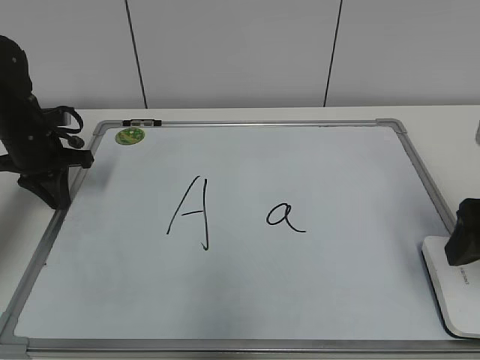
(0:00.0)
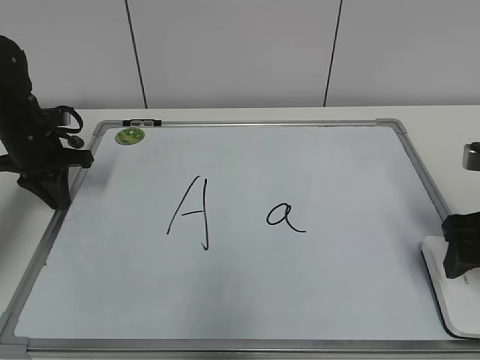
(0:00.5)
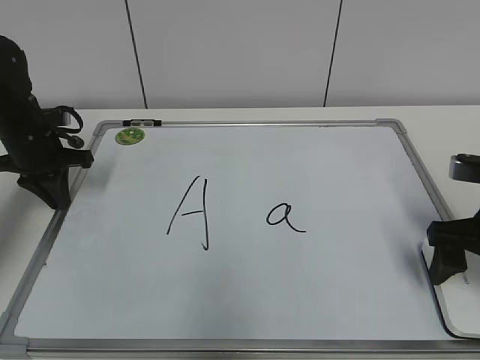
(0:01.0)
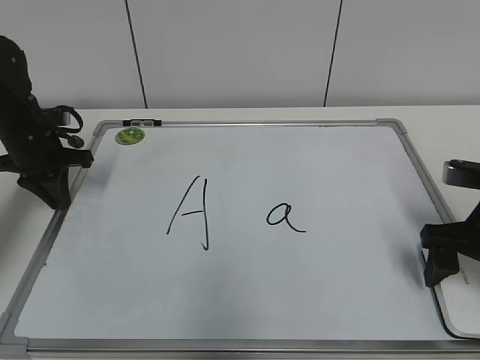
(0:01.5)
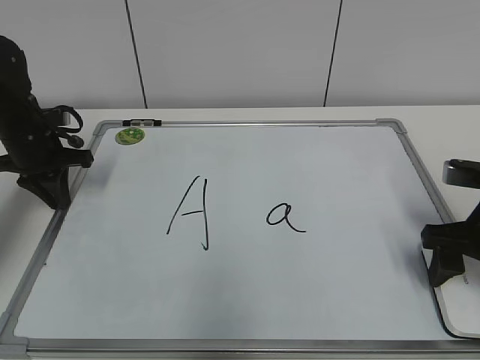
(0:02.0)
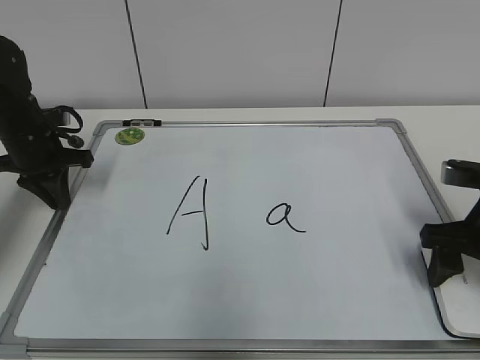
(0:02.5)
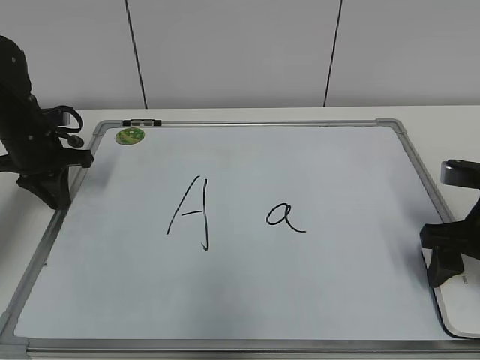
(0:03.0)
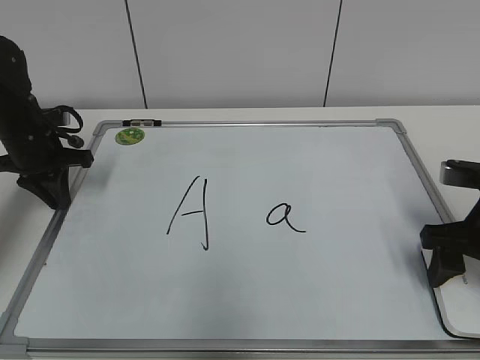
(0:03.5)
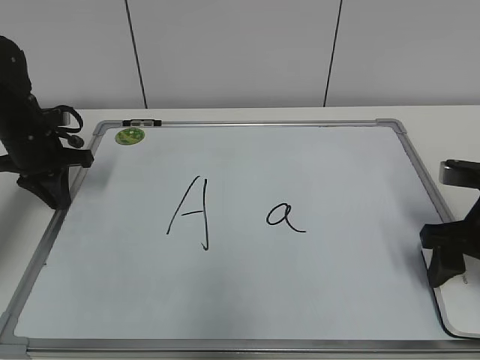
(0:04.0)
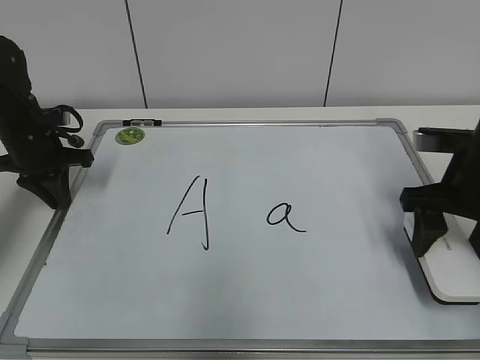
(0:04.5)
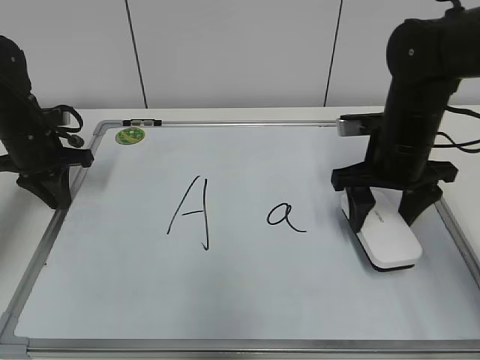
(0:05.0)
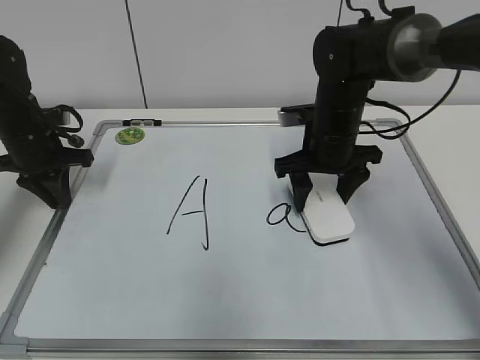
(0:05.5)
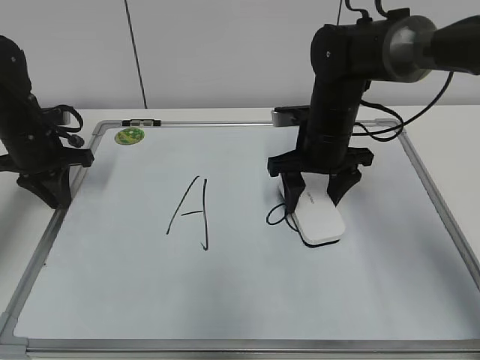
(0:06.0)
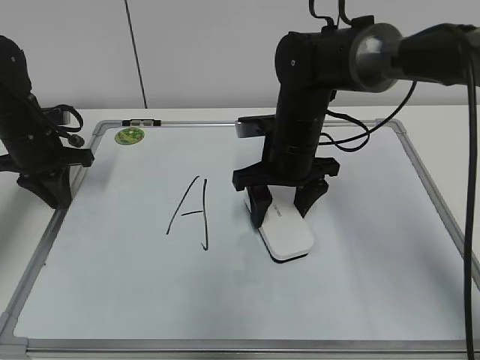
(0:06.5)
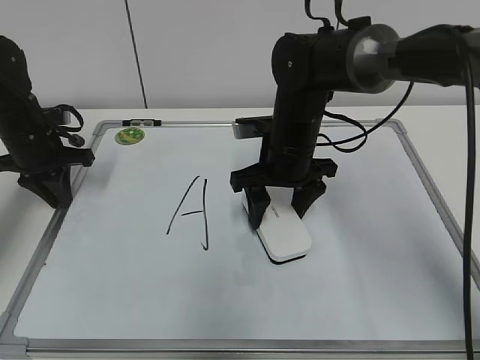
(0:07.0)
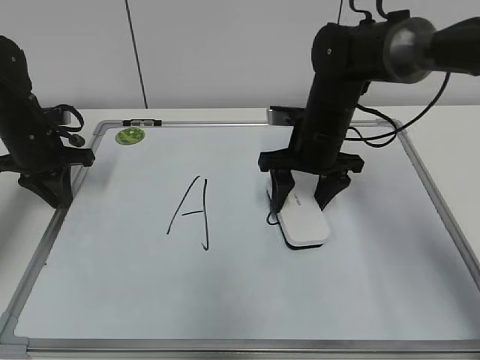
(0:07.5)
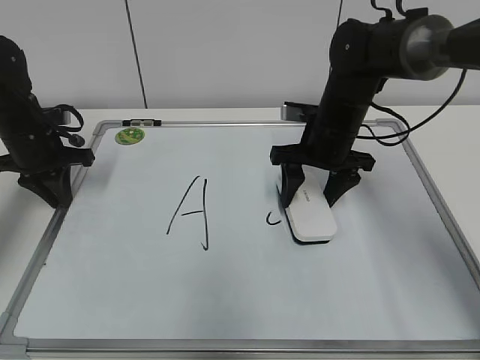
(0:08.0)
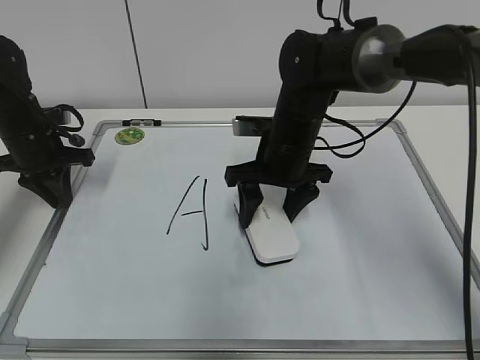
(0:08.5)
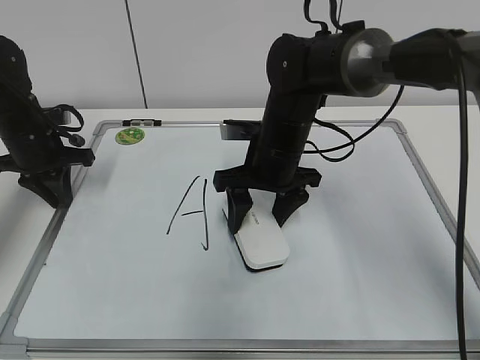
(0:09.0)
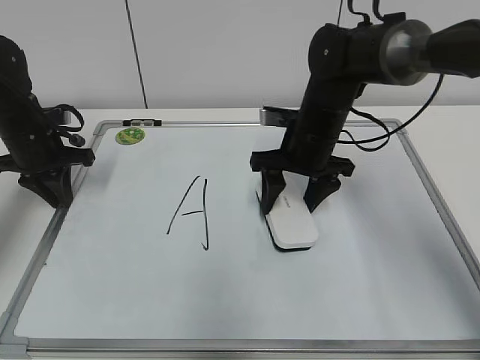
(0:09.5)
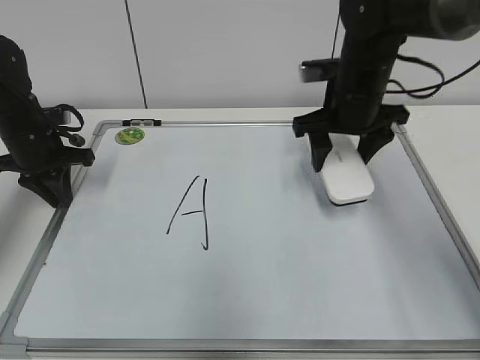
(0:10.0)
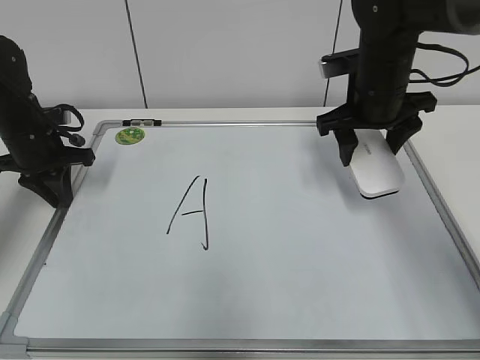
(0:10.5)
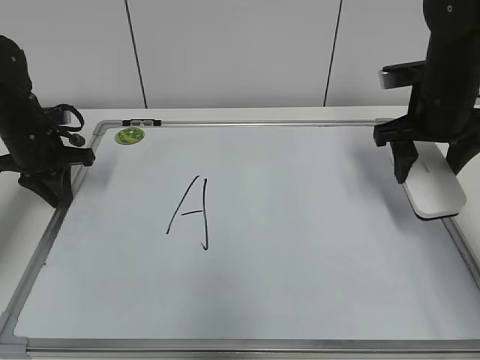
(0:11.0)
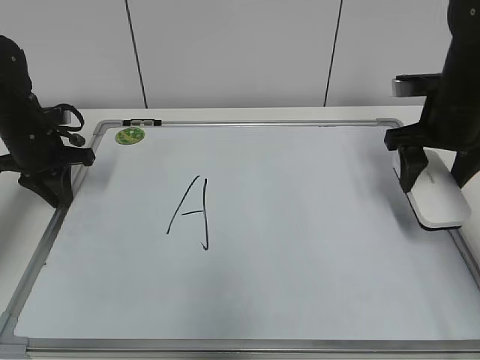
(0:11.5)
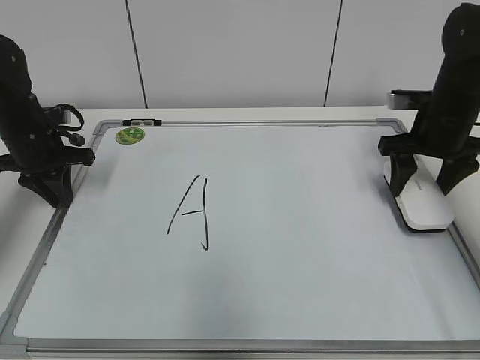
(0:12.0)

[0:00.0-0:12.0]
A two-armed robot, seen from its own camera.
Task of the whole recording: pick up the eraser on the blackboard and erase the letter "a".
Step, 0:00.0 to 0:02.0: Grab the eraser with your right hand.
Step, 0:02.5 to 0:09.5: Erase the letter a with your right hand.
0:00.0 to 0:02.0: The right gripper travels downward by approximately 5 cm, and closes its fingers.
0:02.0 to 0:04.0: The two grippers keep their place.
0:04.0 to 0:06.0: The right gripper is displaced to the left and forward by about 20 cm.
0:06.0 to 0:08.0: The grippers move only a little.
0:08.0 to 0:10.0: The right gripper is displaced upward by about 5 cm, and reaches about 5 cm to the left, then returns.
0:10.0 to 0:12.0: The right gripper is displaced to the right by approximately 10 cm.

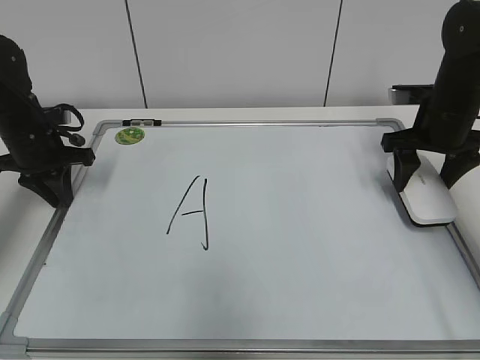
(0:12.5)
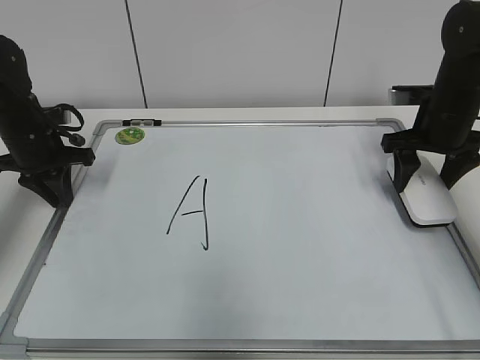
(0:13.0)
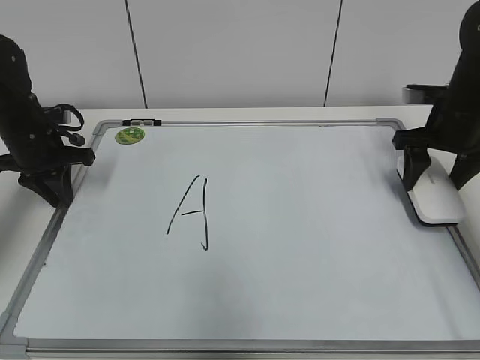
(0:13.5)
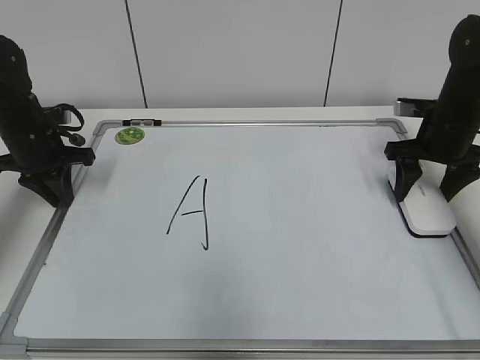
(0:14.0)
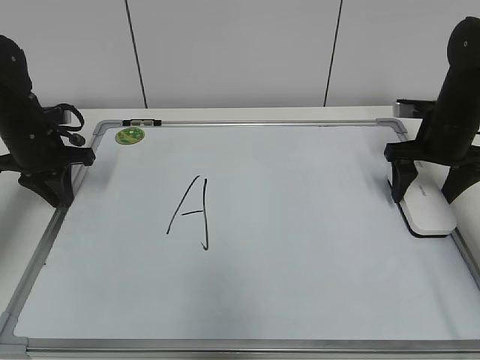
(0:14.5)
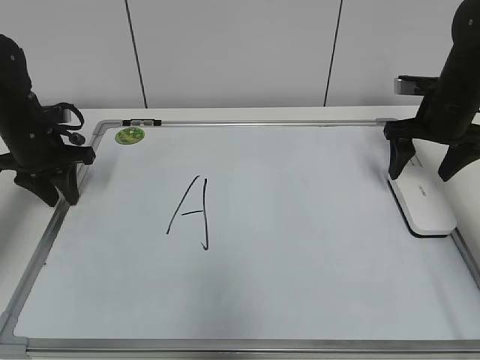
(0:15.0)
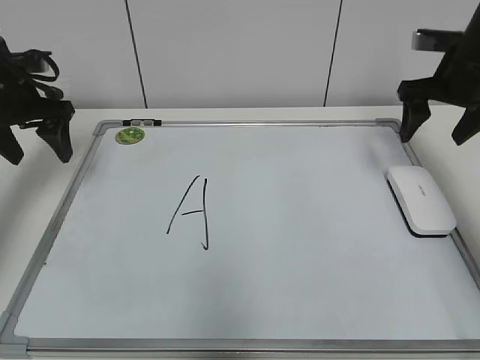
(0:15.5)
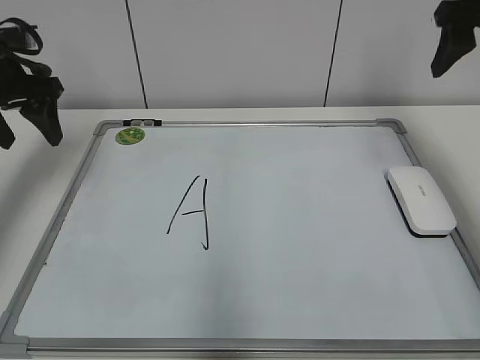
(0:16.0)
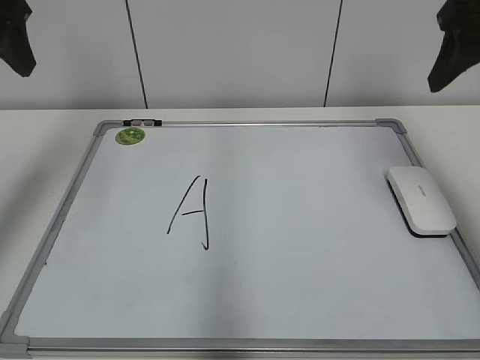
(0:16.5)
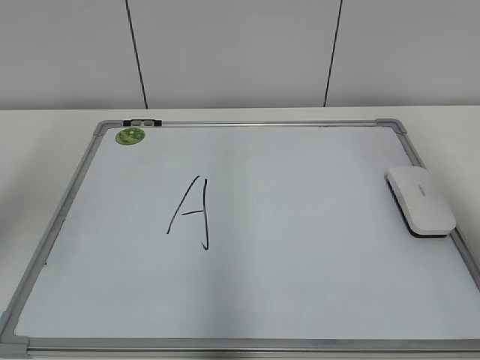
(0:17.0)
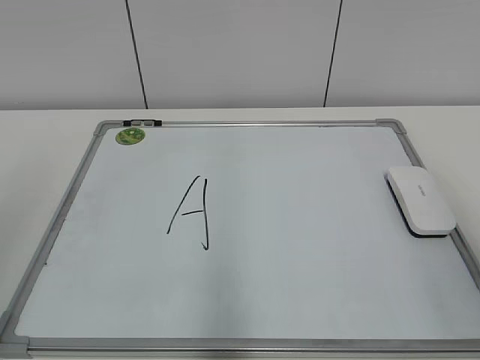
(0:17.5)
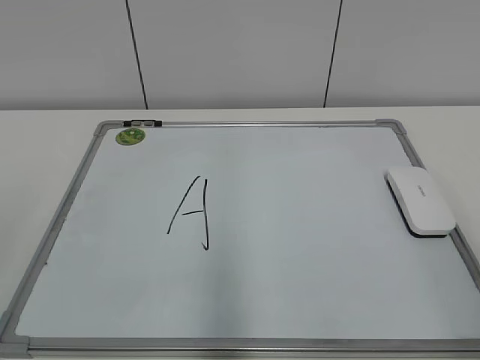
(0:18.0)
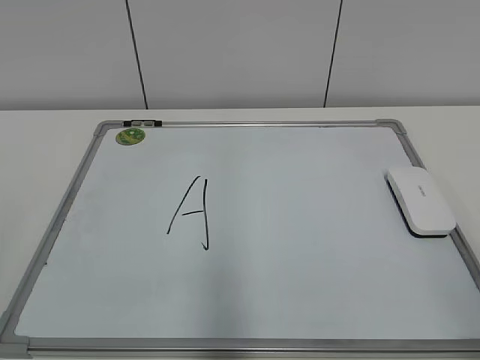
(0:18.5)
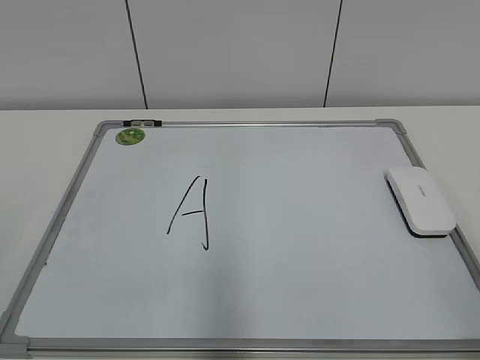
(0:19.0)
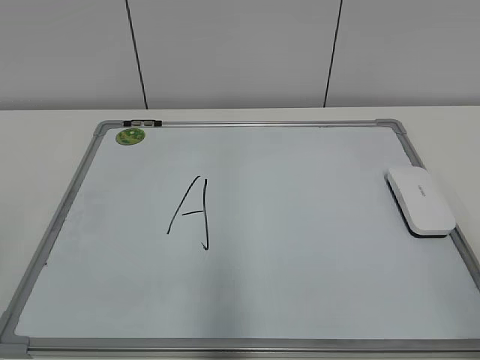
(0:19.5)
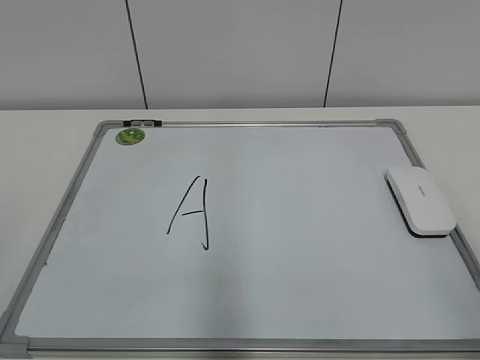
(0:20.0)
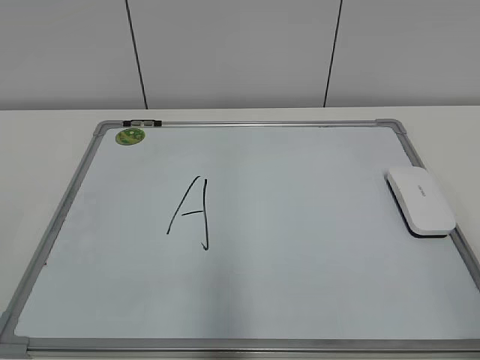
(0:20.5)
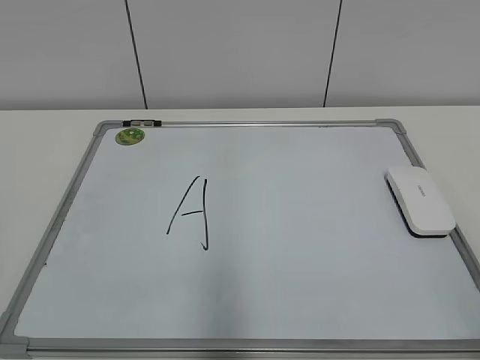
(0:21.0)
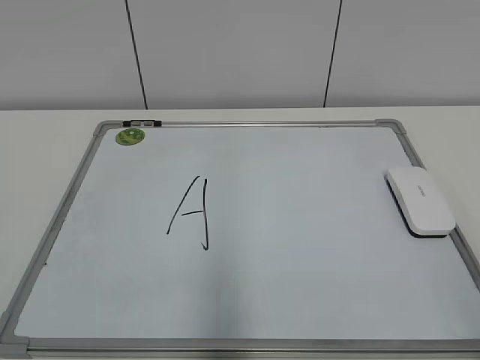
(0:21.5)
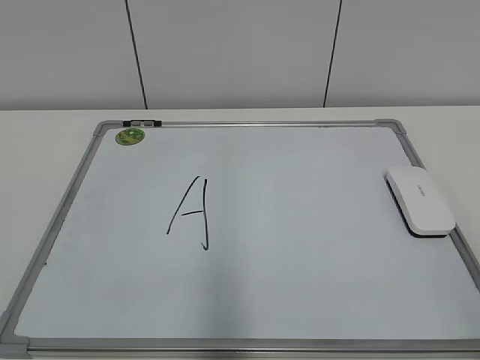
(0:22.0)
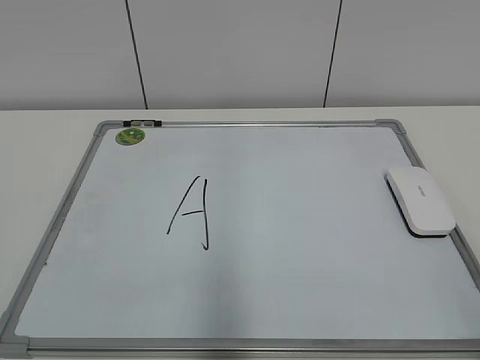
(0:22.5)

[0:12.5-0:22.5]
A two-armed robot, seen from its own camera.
Task of the whole recording: pick up the eraser on the blackboard and erase the letter "a".
0:12.5 to 0:14.5: The right gripper opens up.
0:14.5 to 0:16.5: The right gripper goes about 20 cm upward and backward, and closes. The left gripper moves upward, some 25 cm, and opens its fingers.
0:16.5 to 0:18.5: Both grippers move backward, approximately 30 cm.
0:18.5 to 0:20.5: Neither gripper changes place.

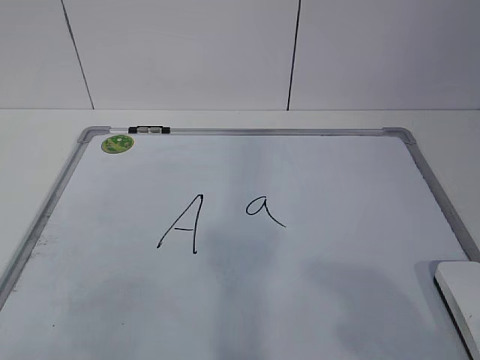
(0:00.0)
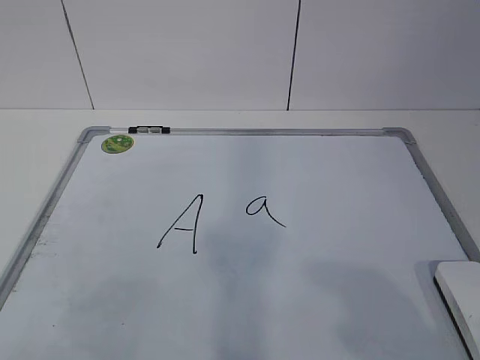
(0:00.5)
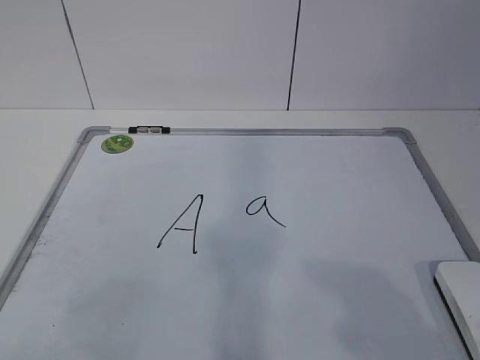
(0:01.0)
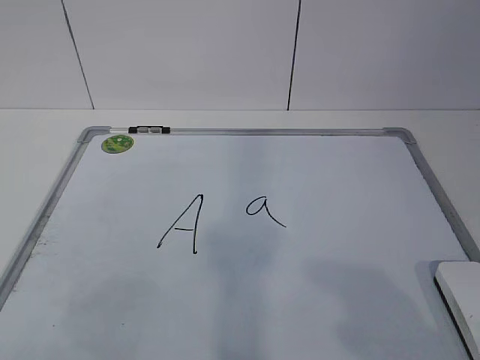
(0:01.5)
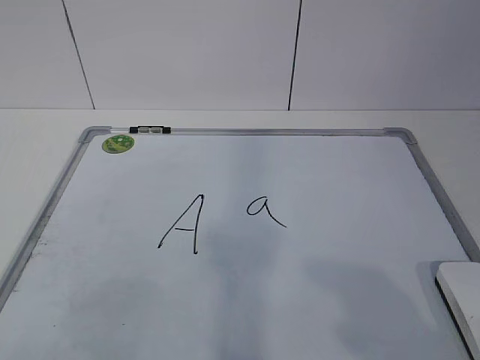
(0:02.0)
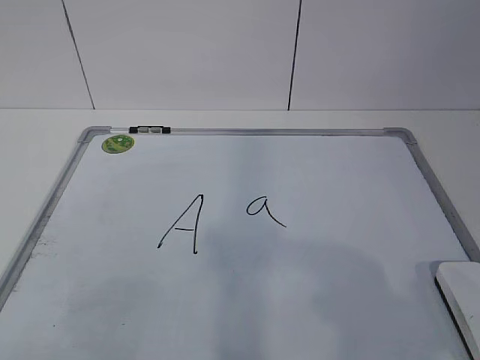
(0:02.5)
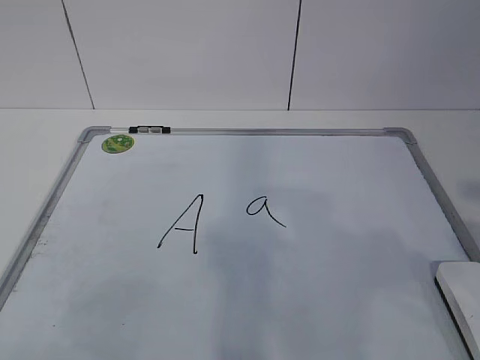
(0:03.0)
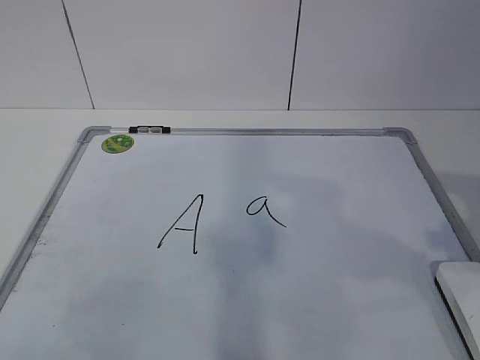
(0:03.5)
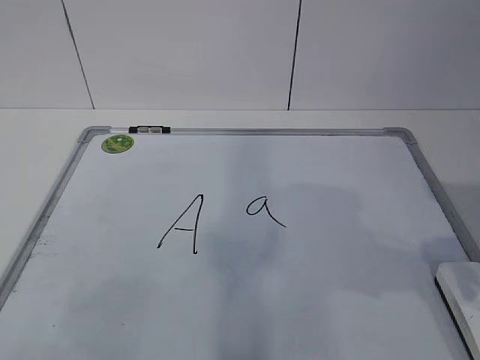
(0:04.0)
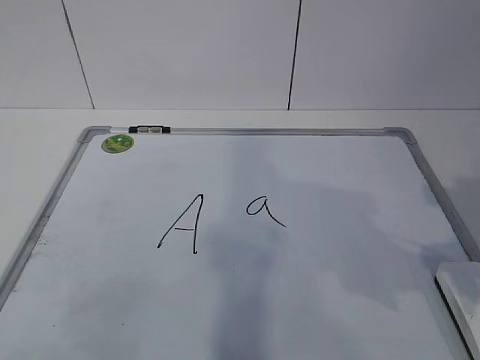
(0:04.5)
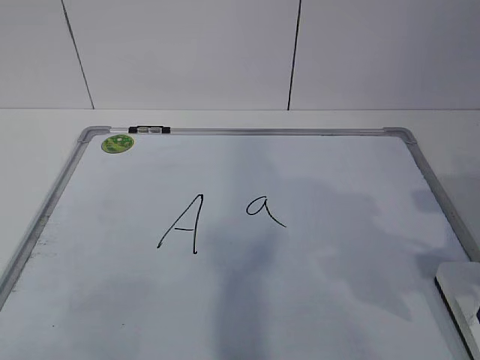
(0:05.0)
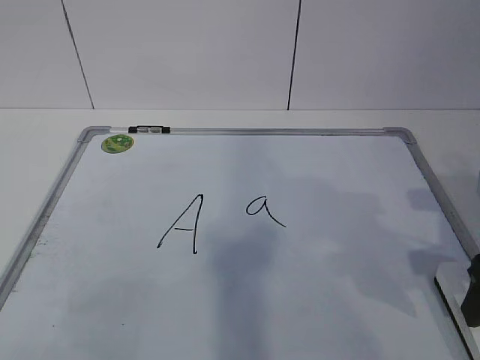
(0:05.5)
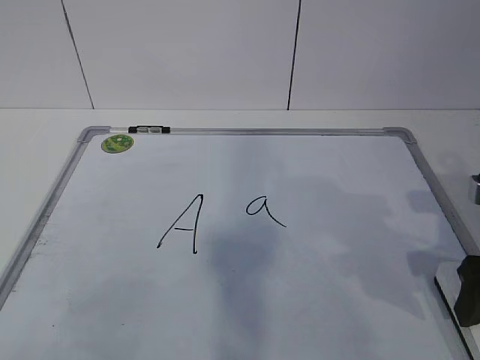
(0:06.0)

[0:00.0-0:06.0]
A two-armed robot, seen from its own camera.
Task of the whole recording: pick up the eraser on the blackboard and erase the letter "a".
0:02.0 to 0:04.0: The right gripper shifts approximately 15 cm forward, and opens up.
0:04.0 to 0:06.0: The right gripper goes about 10 cm downward and forward, and opens up.
